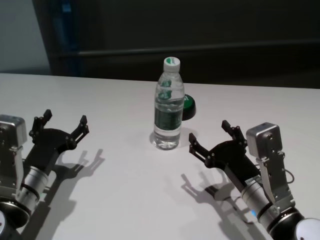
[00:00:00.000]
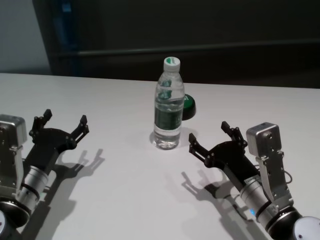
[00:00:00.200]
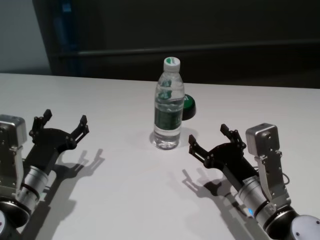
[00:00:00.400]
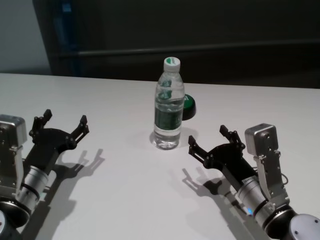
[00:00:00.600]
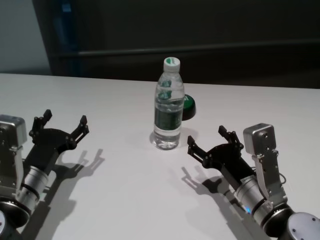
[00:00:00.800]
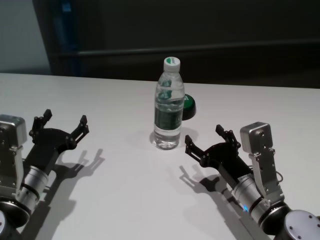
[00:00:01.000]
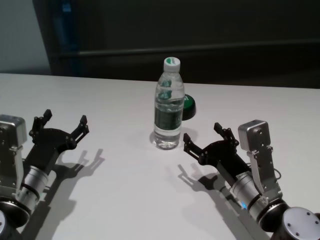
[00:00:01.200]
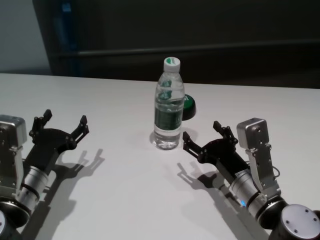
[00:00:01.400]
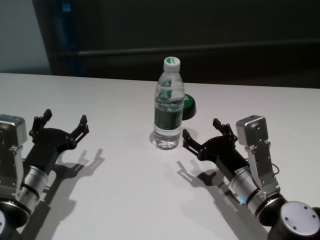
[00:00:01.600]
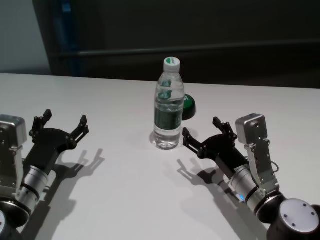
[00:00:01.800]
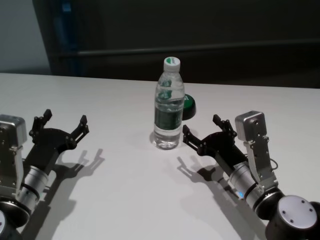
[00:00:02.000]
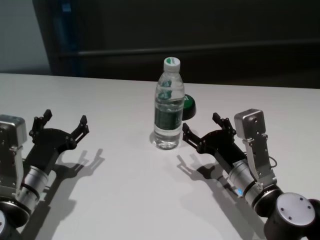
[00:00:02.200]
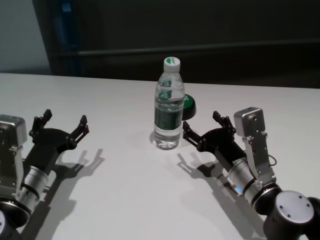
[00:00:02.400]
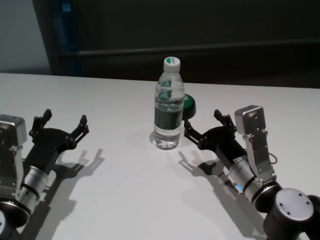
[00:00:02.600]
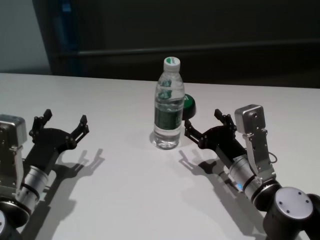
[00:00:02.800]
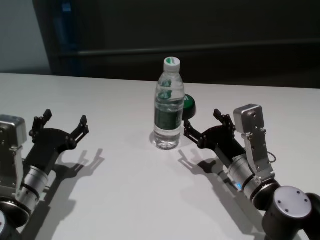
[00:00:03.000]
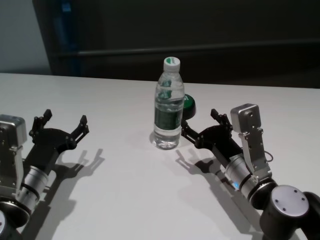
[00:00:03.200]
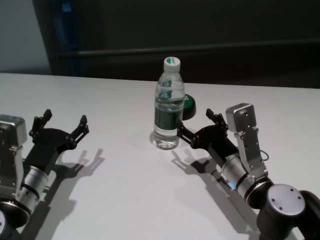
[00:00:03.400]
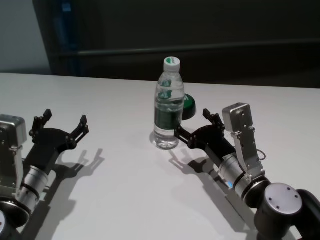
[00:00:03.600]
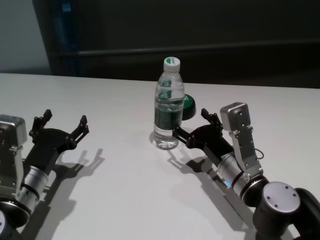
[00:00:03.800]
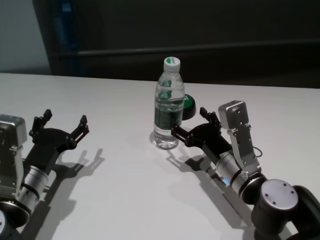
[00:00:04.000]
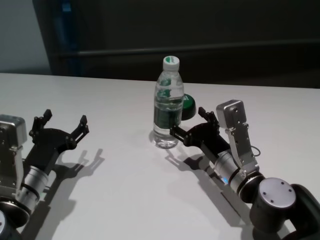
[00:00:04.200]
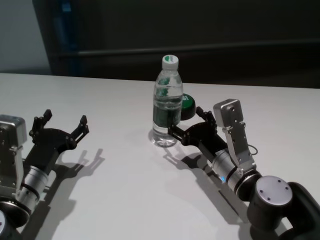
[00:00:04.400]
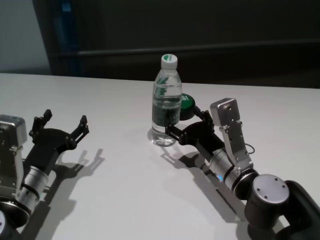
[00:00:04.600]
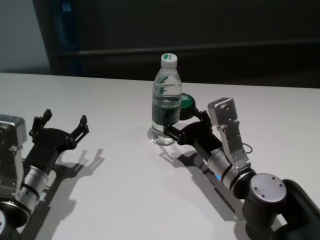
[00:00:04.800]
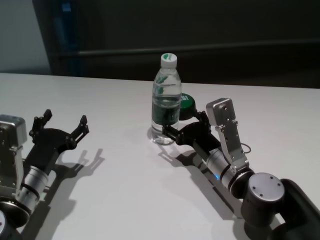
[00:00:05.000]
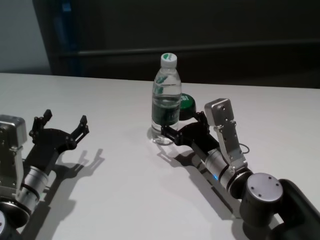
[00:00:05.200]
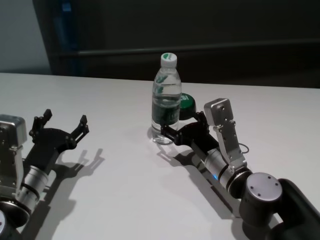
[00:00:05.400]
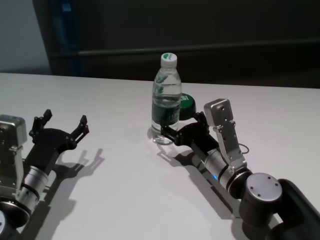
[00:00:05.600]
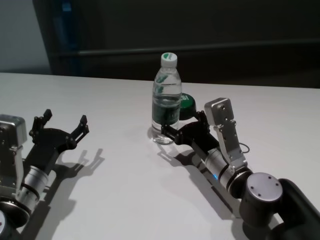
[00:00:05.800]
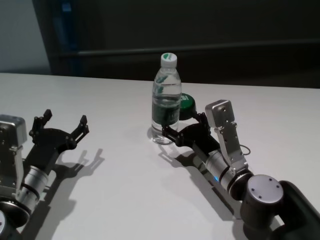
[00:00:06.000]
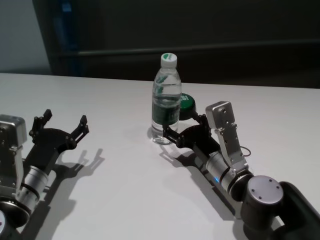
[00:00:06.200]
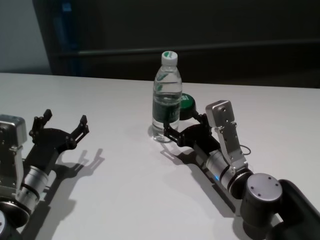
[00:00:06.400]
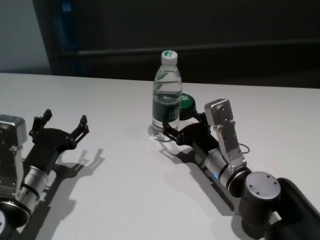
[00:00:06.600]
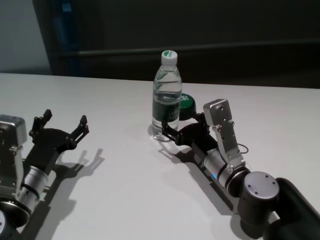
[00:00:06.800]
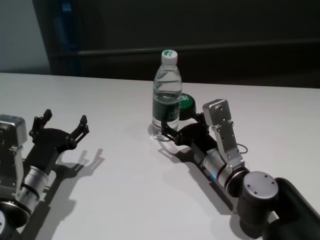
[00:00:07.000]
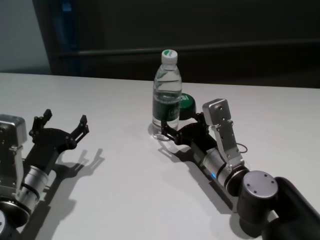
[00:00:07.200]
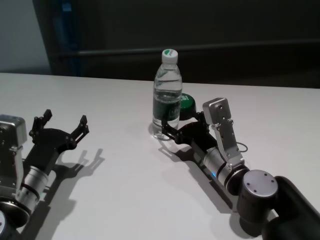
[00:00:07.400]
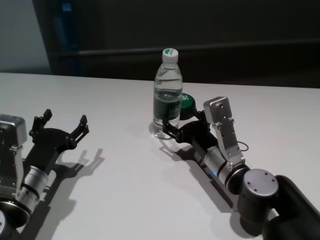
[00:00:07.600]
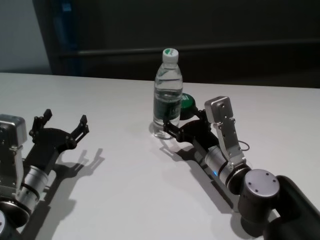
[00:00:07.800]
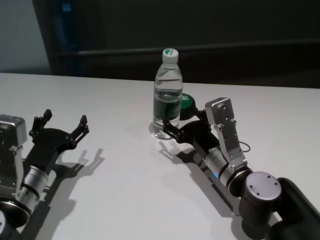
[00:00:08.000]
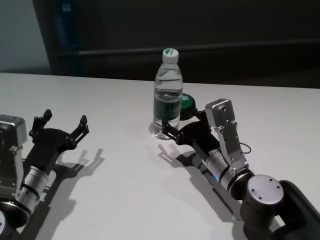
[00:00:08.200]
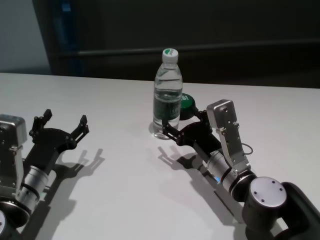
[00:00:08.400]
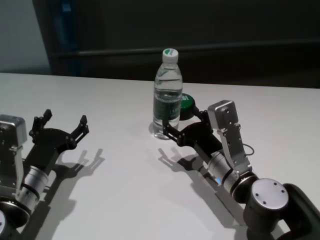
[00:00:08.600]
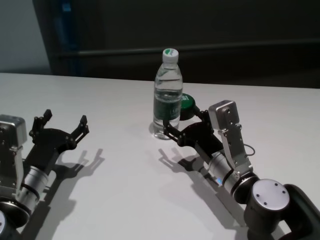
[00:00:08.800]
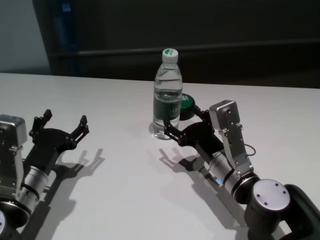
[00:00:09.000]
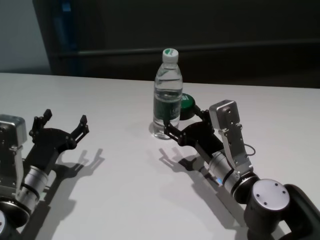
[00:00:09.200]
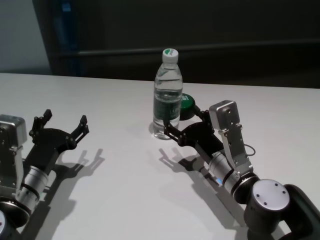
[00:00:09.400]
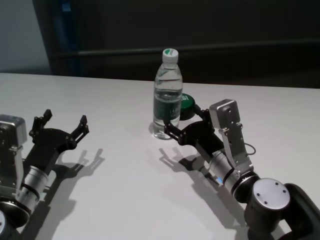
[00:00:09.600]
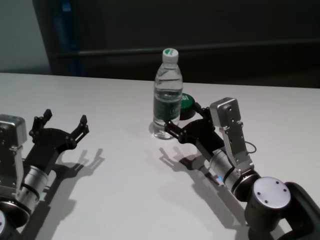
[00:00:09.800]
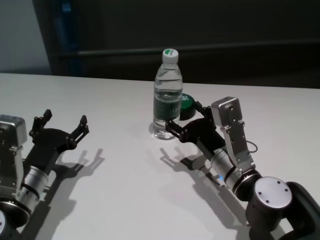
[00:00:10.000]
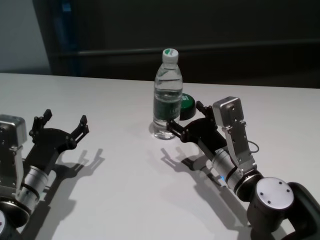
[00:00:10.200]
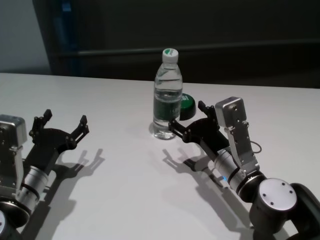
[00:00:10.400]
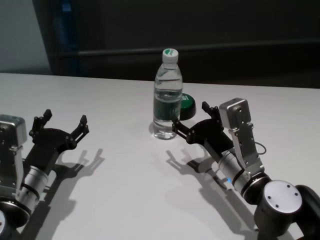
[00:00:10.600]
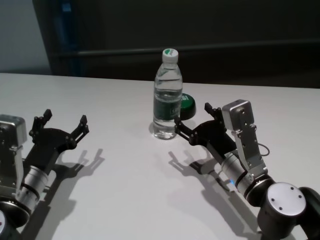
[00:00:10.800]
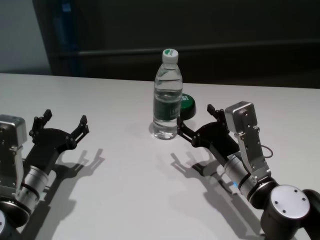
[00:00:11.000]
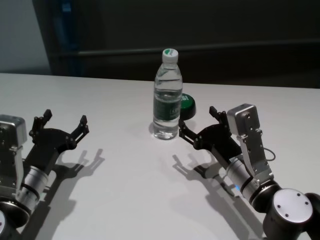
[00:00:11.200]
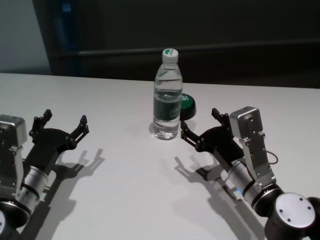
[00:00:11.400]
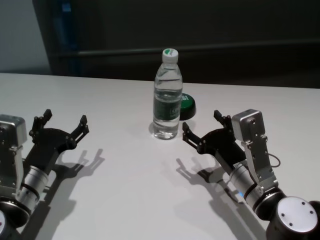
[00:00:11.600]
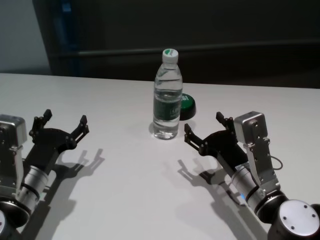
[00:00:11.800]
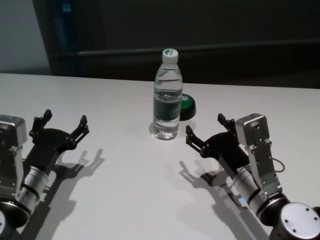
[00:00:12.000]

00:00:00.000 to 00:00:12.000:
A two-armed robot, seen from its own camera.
Task of the whole recording: return to a safe position after touching an obstacle with your arm on the white table.
Step, 00:00:00.000 to 00:00:10.800: Touch the bottle with right gripper.

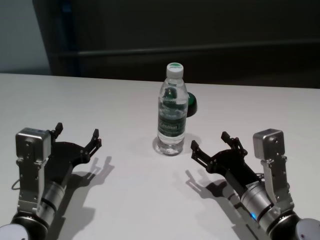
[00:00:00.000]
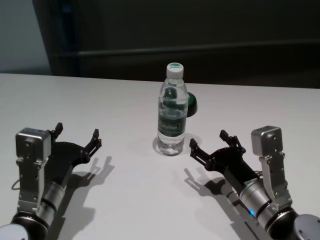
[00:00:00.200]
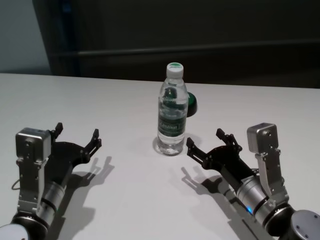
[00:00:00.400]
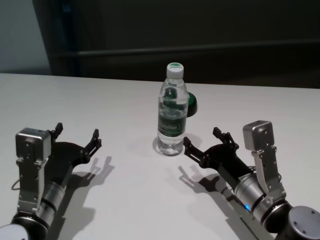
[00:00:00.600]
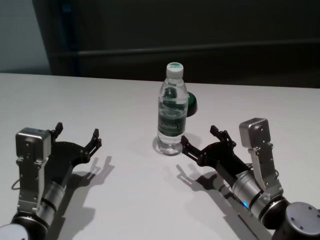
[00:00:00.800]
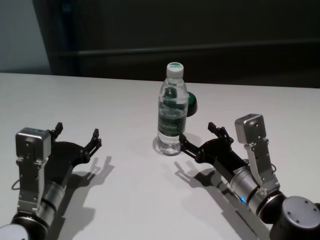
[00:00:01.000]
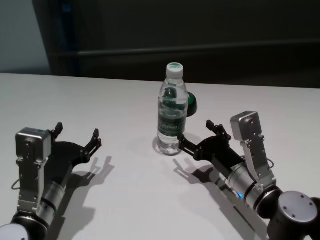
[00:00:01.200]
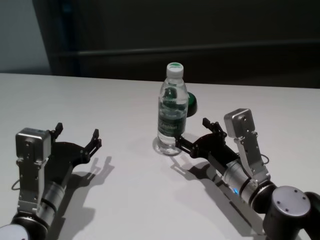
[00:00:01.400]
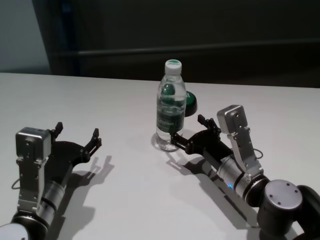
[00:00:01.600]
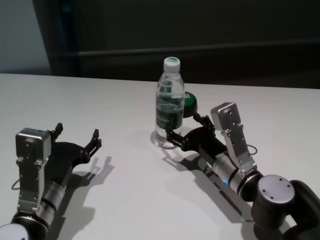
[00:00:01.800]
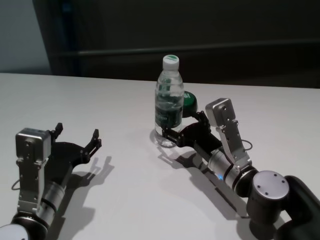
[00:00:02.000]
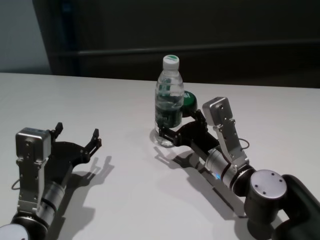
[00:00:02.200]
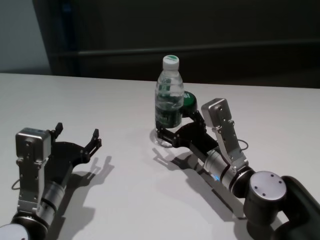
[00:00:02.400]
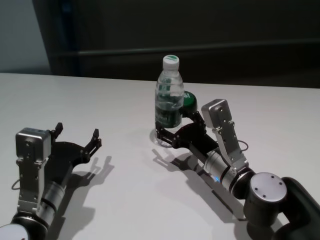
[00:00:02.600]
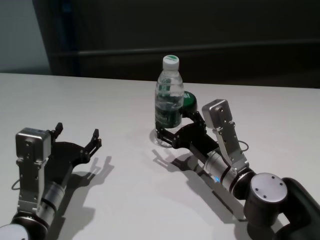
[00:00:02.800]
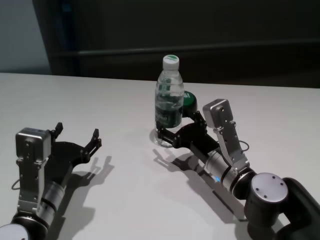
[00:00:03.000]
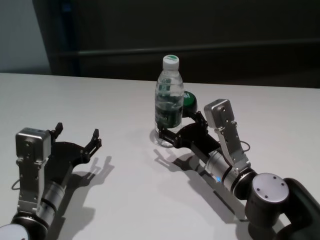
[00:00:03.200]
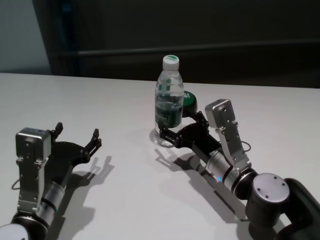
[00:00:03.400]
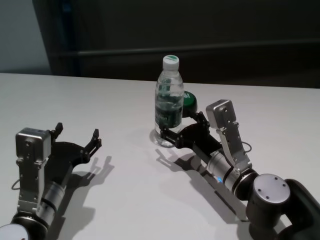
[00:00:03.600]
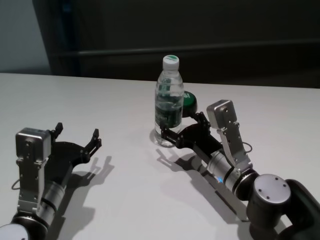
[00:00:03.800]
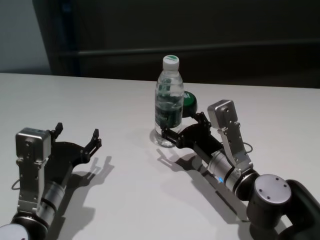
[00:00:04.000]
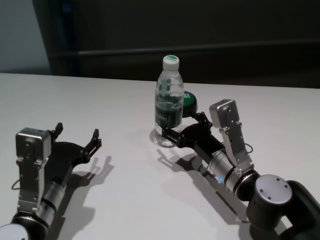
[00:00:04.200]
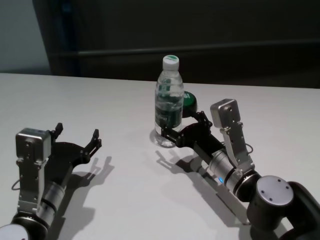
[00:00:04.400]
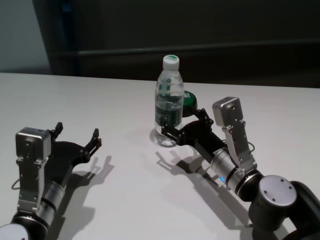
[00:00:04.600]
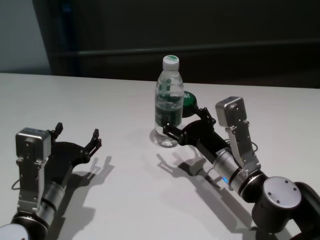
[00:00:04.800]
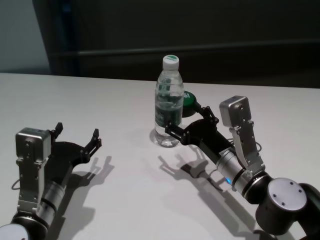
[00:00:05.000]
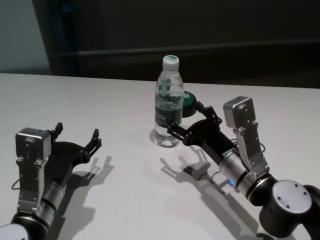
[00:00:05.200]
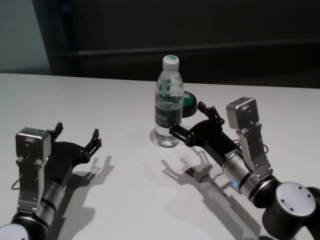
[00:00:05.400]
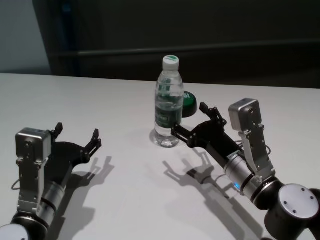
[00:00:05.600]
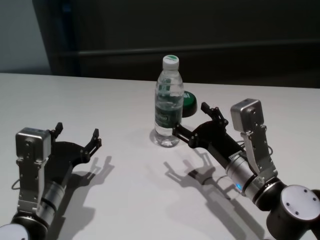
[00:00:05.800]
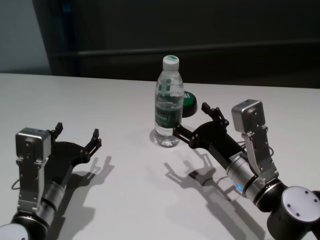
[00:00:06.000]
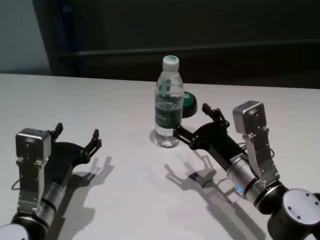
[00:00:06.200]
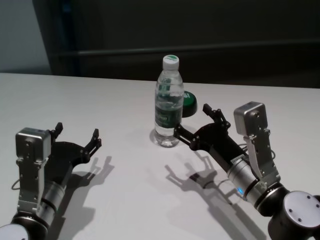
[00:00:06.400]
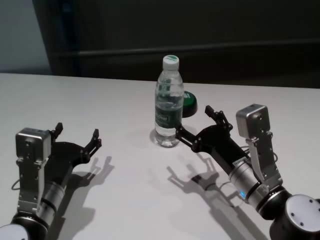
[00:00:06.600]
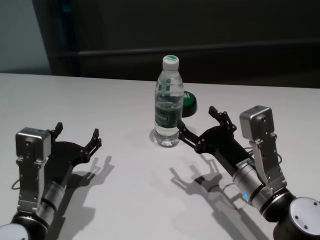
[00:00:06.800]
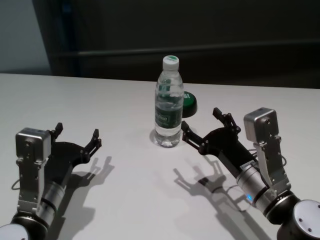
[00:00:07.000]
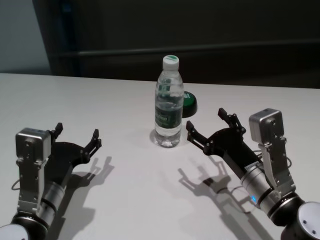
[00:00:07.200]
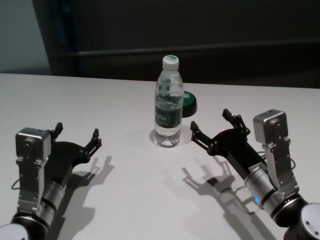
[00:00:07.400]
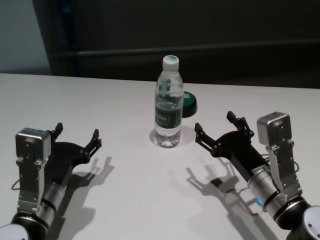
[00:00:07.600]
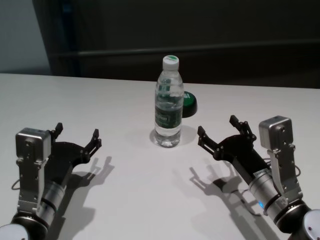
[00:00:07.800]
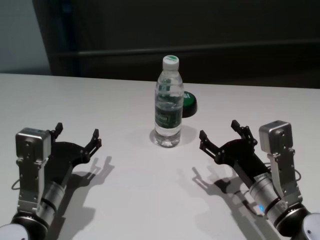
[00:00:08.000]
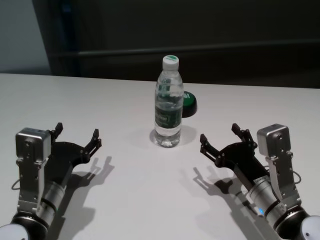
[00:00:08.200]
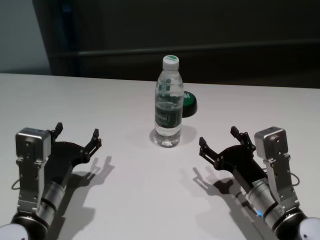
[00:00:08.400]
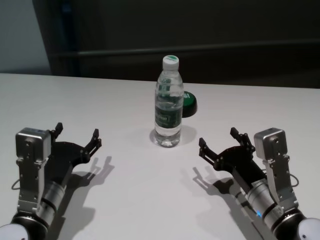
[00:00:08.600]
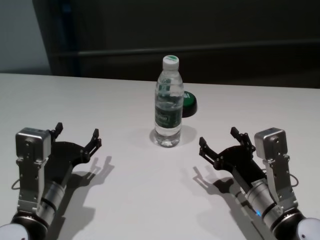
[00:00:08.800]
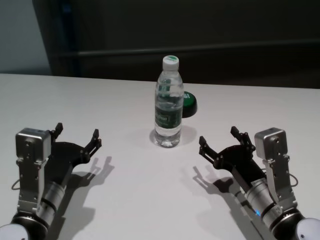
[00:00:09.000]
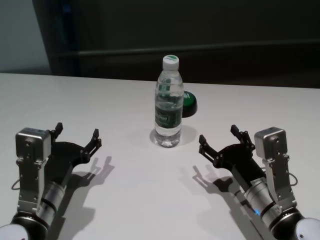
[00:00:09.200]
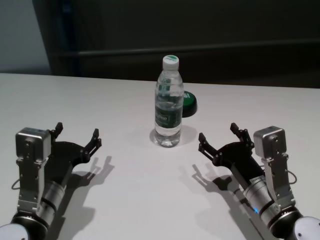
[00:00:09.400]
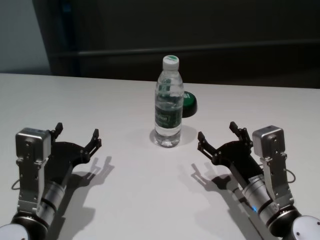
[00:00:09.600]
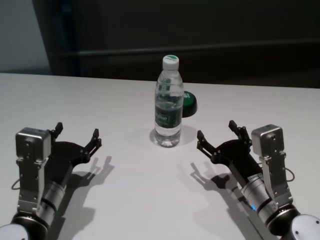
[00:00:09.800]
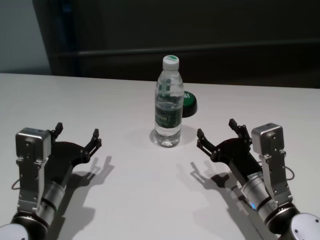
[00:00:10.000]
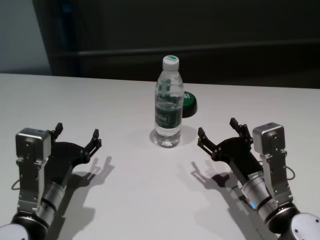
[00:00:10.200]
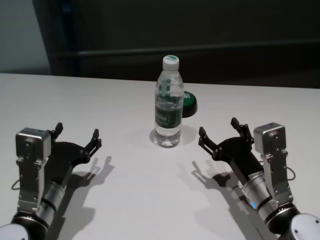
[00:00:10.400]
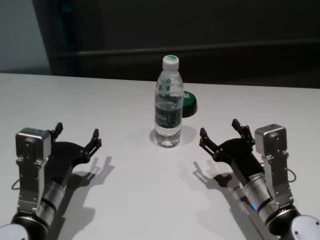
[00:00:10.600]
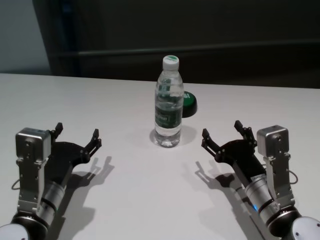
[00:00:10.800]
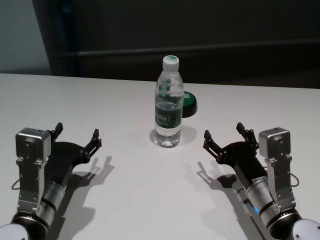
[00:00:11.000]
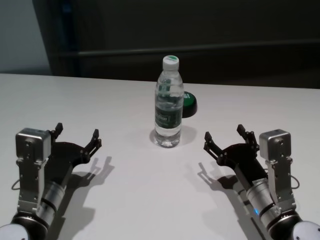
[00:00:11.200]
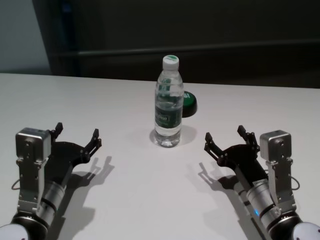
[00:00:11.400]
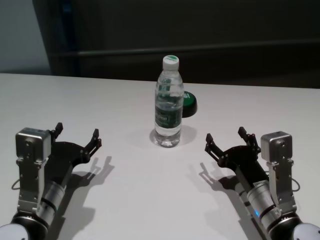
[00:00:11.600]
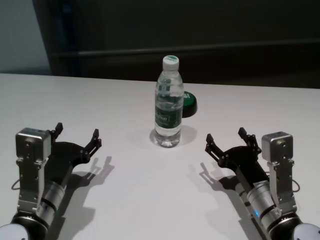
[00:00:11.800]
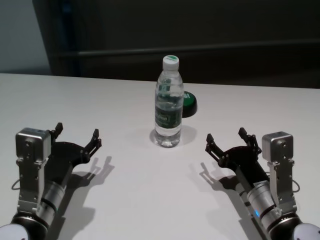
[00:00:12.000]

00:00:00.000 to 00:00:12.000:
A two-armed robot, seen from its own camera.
Task of the whole recording: return to a safe position after touching an obstacle with your arm on the white table.
Step, 00:00:00.000 to 00:00:05.600: Touch the bottle with right gripper.
